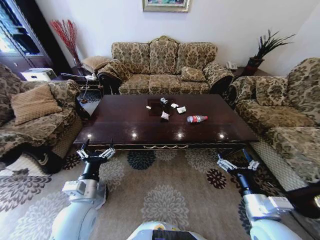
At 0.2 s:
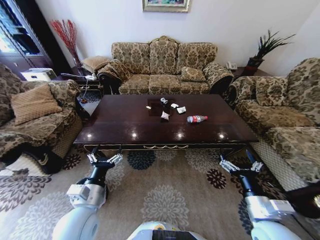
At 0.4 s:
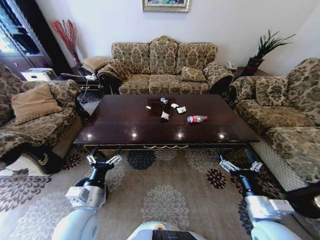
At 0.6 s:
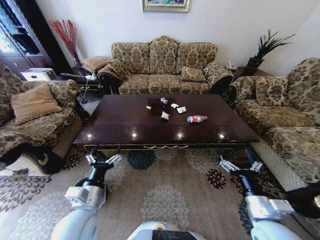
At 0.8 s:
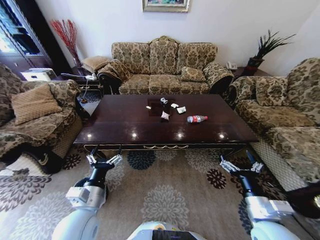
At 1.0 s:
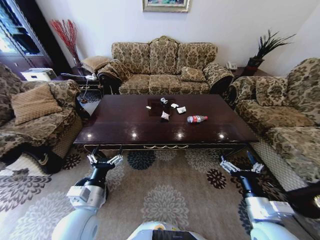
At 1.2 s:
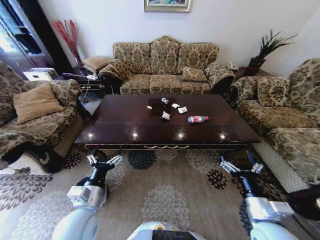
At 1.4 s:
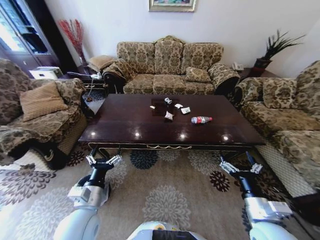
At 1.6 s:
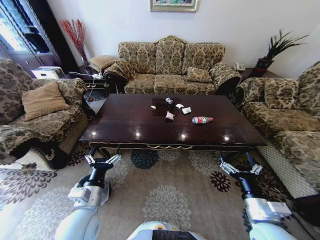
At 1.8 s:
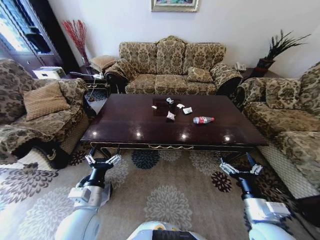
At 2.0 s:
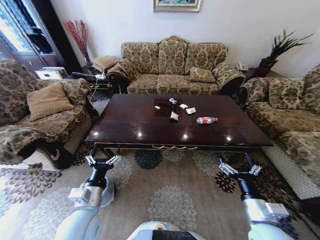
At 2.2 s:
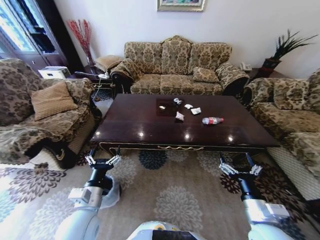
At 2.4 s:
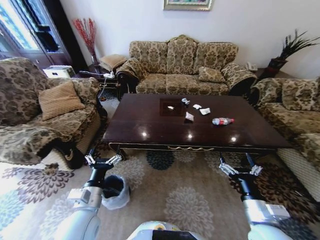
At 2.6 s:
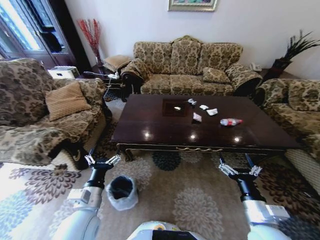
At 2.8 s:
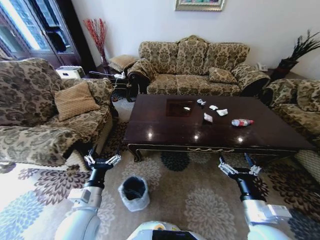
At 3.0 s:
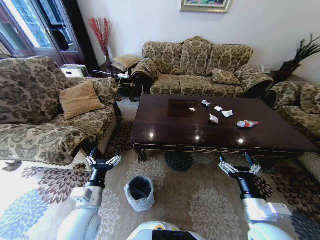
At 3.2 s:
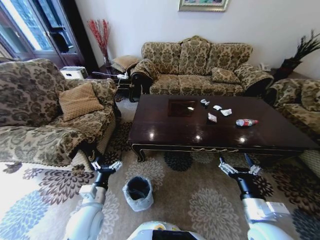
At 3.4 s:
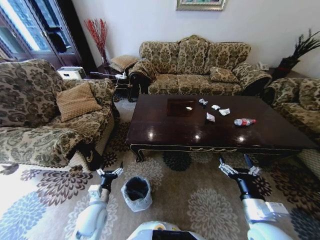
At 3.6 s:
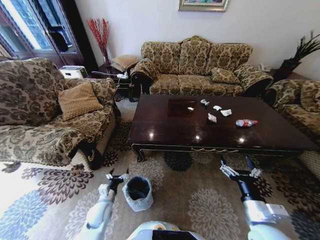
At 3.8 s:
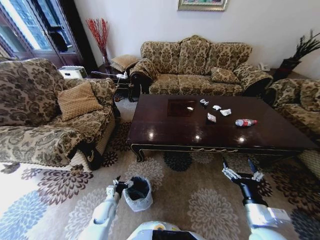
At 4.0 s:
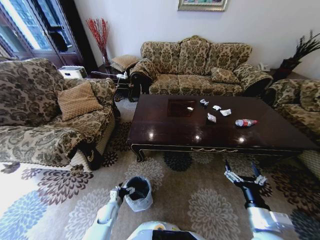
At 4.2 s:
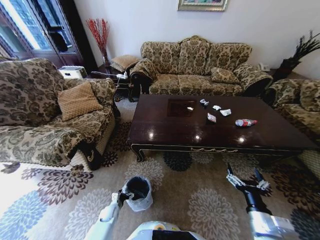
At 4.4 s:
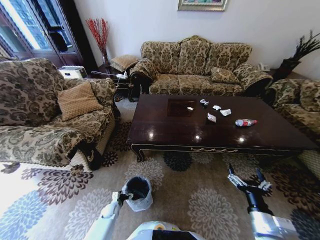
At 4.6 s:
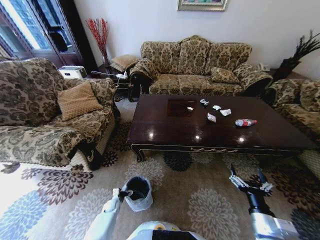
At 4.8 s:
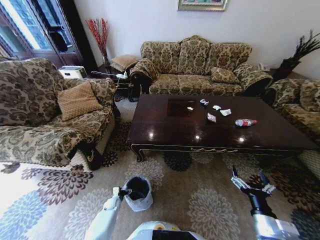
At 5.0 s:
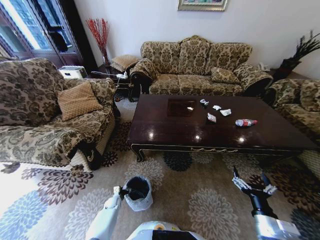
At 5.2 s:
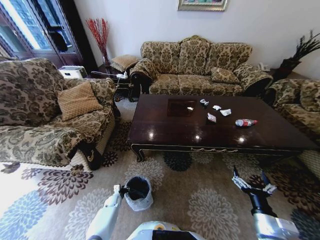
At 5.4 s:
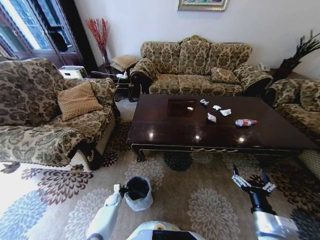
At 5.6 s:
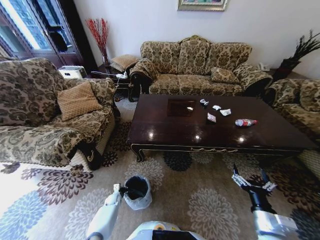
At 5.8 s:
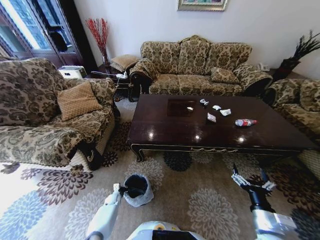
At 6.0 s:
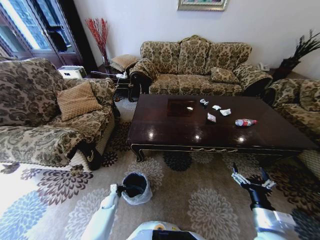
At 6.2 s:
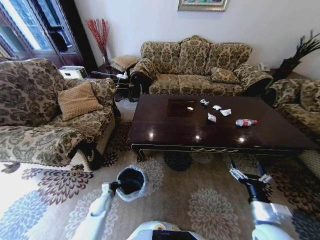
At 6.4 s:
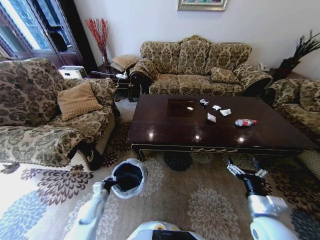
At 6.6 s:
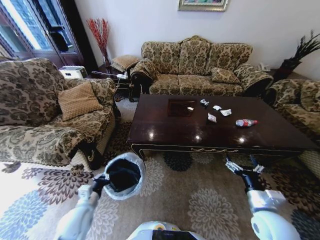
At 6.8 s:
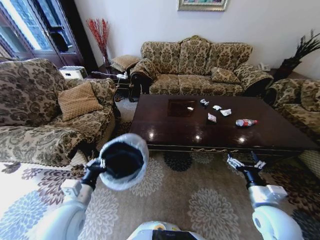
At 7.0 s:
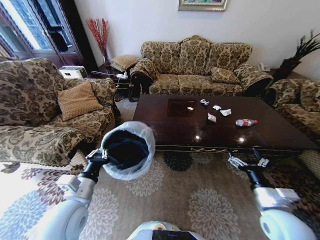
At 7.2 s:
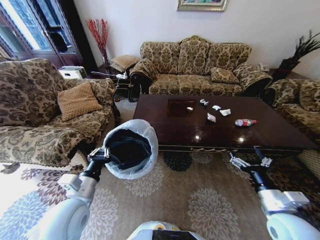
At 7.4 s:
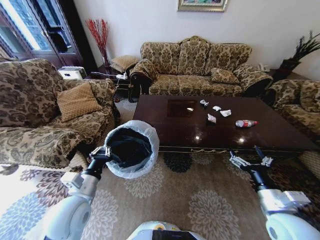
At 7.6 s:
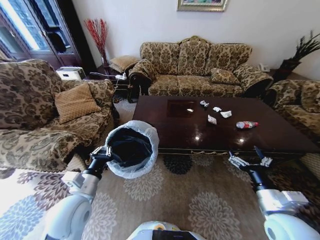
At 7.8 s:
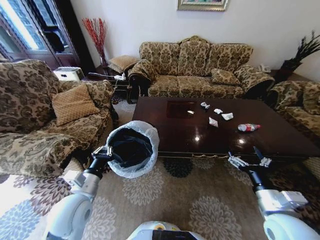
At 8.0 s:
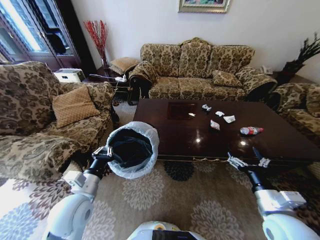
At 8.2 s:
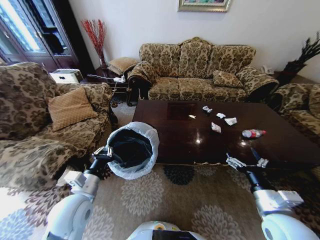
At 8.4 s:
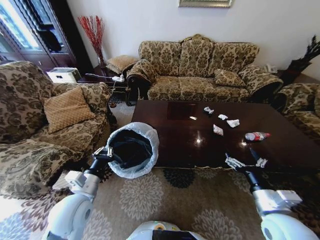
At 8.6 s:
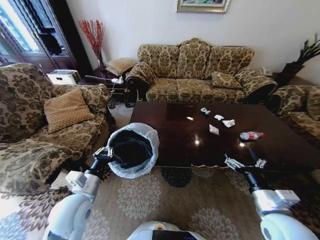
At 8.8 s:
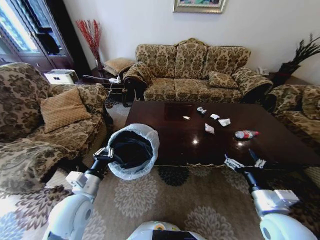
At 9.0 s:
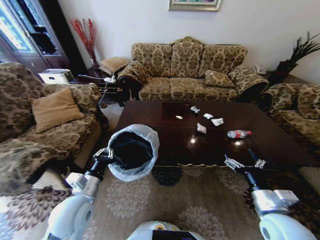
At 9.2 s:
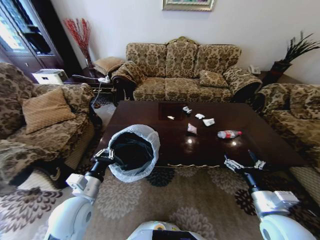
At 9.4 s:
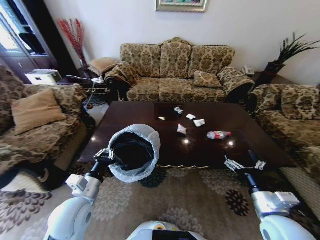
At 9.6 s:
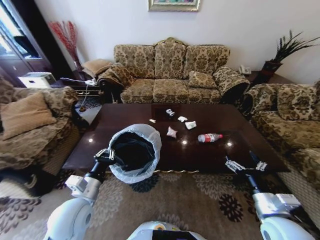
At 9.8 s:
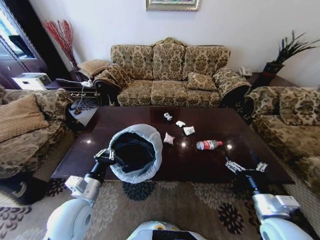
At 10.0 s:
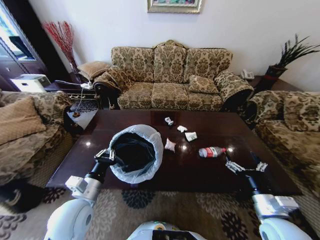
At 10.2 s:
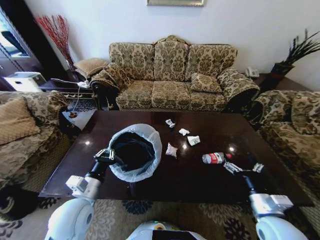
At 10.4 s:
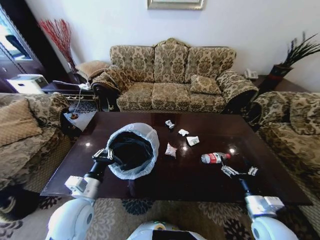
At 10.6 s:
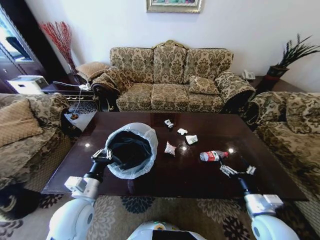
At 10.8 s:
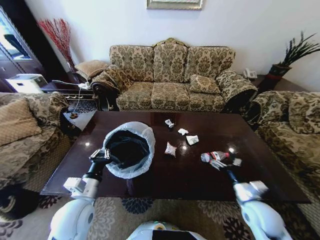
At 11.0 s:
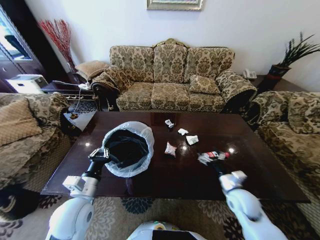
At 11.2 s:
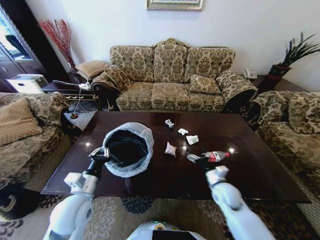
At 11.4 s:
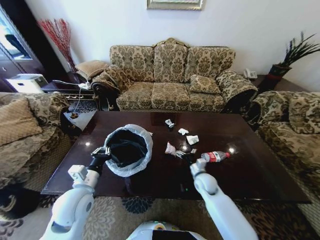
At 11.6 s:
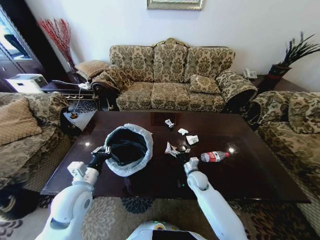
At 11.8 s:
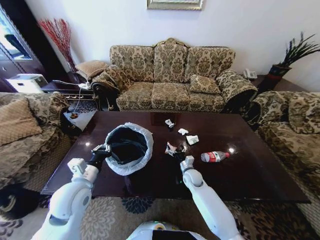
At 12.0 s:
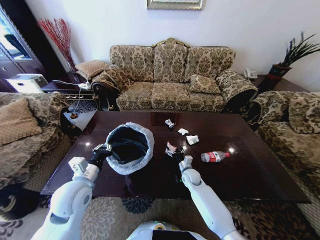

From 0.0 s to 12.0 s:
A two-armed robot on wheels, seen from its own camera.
Task of the whole recording: Move to the front of the table and place the trash on the table into the trash bin.
From 3.0 s to 4.4 s: The left gripper is displaced downward by approximately 35 cm, while the right gripper shifts by some 5 cm.
From 4.4 s to 6.0 s: The left gripper closes its fingers.
From 6.0 s to 7.6 s: The right gripper shifts roughly 5 cm upward. Meanwhile the left gripper travels upward by about 40 cm.
From 9.0 s to 10.4 s: The right gripper is displaced downward by about 5 cm.
From 10.4 s to 12.0 s: The right gripper heads forward, to the left and downward, covering roughly 30 cm. Meanwhile the left gripper changes place by some 5 cm.

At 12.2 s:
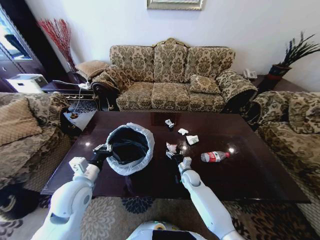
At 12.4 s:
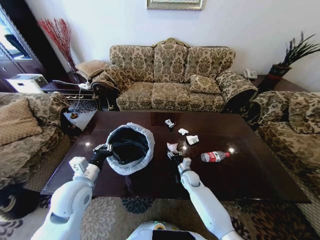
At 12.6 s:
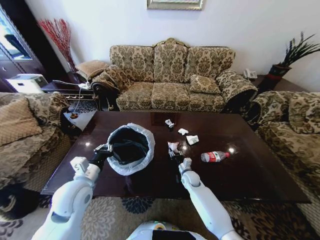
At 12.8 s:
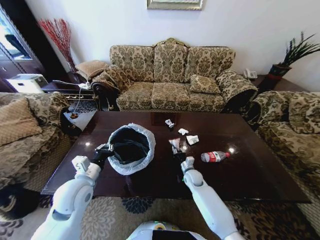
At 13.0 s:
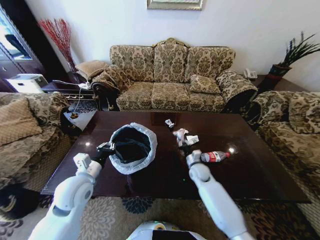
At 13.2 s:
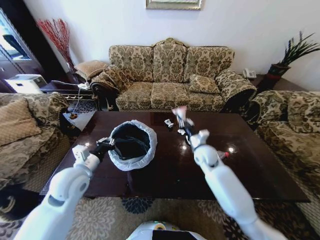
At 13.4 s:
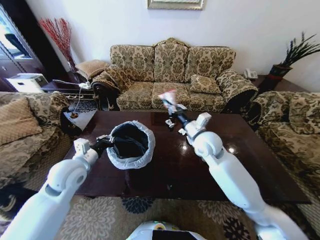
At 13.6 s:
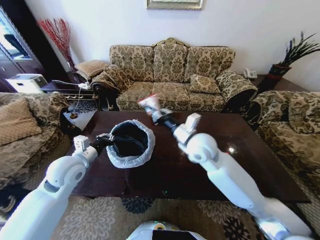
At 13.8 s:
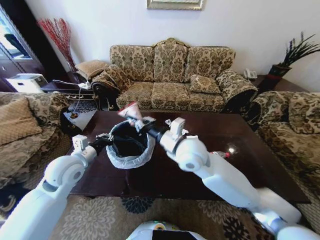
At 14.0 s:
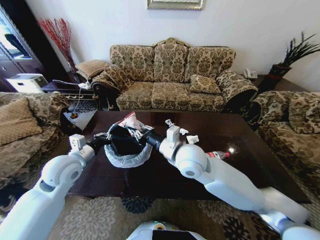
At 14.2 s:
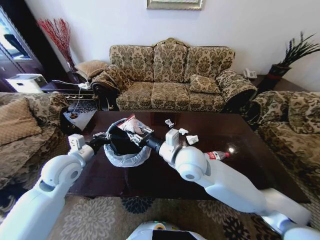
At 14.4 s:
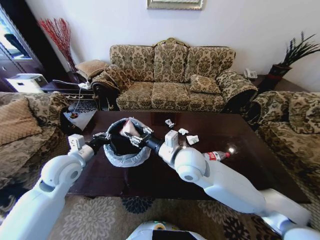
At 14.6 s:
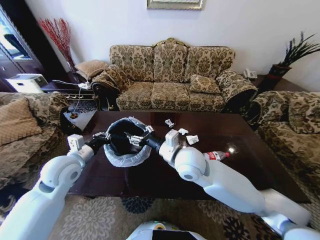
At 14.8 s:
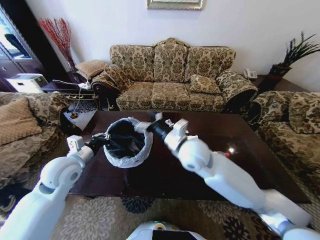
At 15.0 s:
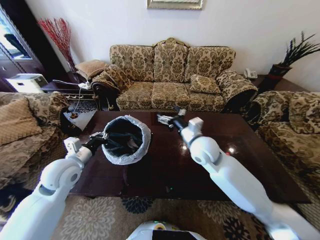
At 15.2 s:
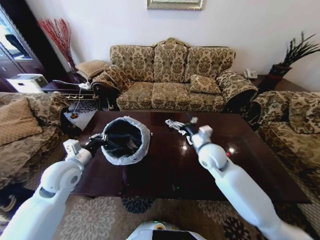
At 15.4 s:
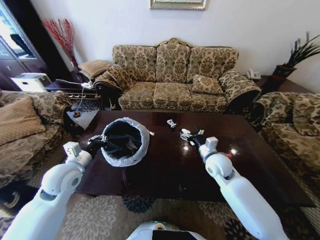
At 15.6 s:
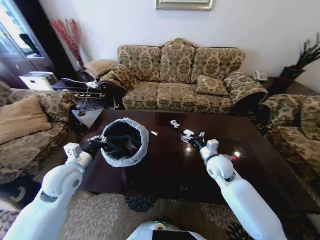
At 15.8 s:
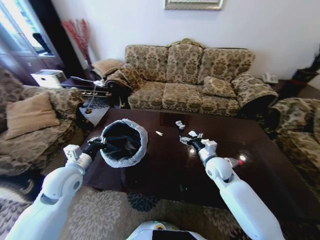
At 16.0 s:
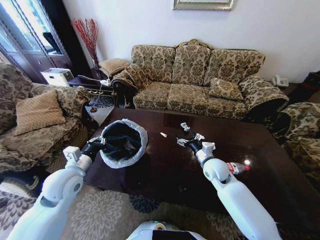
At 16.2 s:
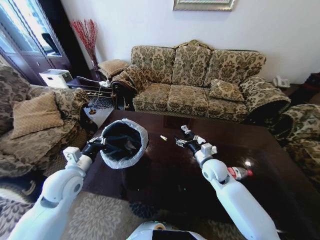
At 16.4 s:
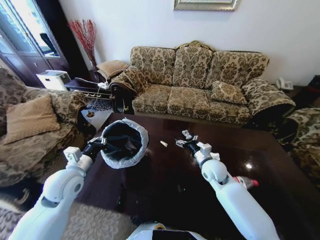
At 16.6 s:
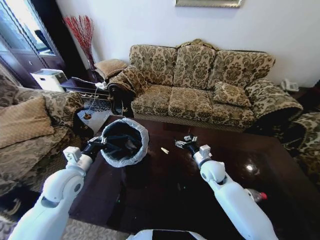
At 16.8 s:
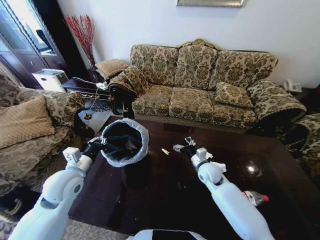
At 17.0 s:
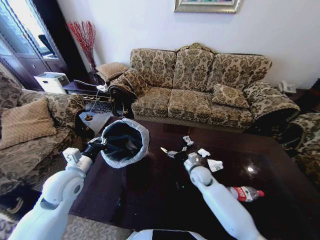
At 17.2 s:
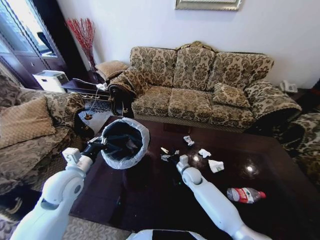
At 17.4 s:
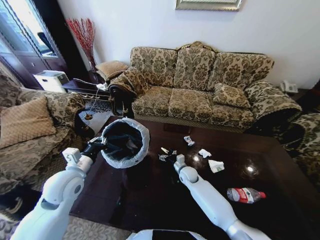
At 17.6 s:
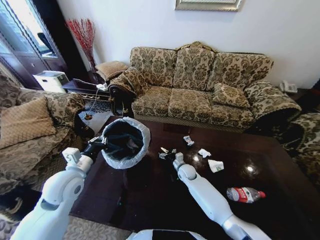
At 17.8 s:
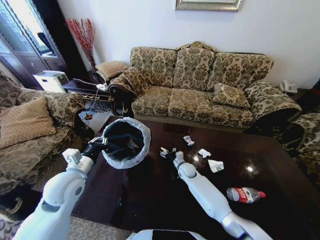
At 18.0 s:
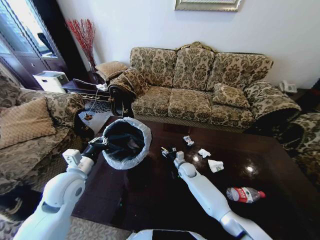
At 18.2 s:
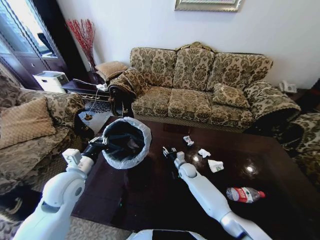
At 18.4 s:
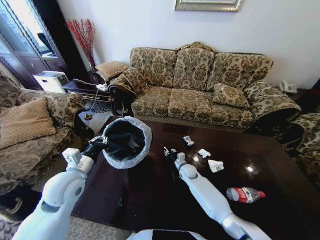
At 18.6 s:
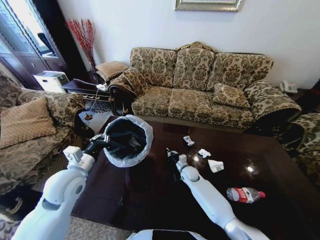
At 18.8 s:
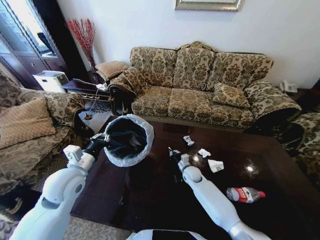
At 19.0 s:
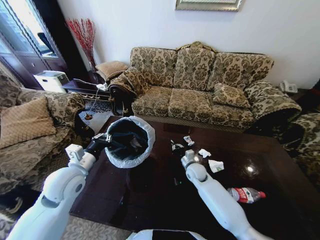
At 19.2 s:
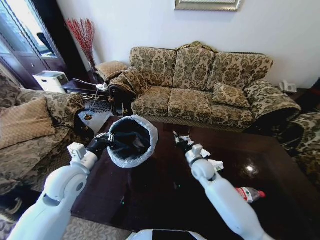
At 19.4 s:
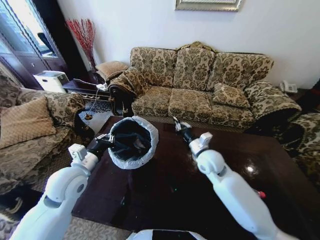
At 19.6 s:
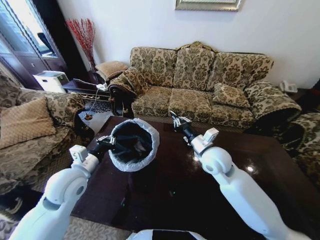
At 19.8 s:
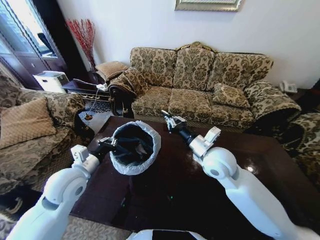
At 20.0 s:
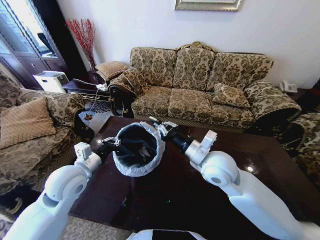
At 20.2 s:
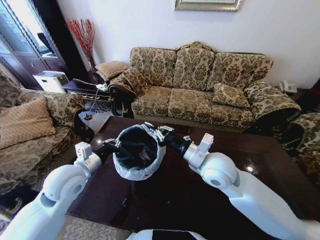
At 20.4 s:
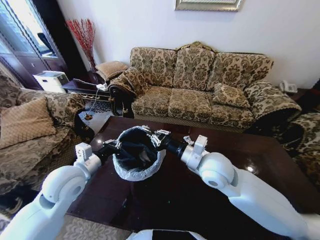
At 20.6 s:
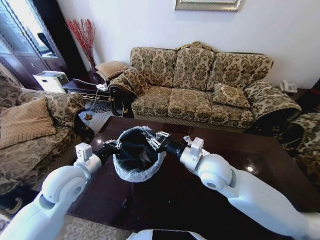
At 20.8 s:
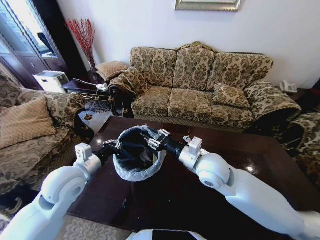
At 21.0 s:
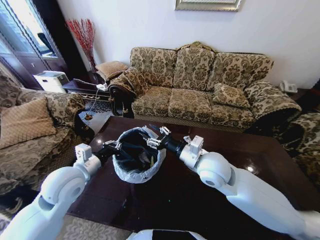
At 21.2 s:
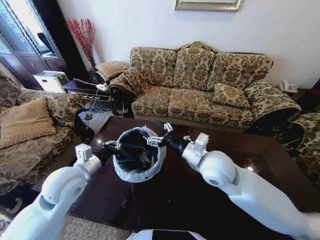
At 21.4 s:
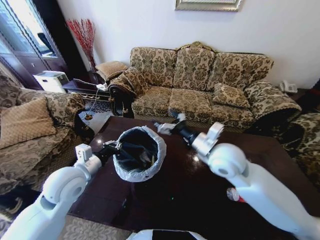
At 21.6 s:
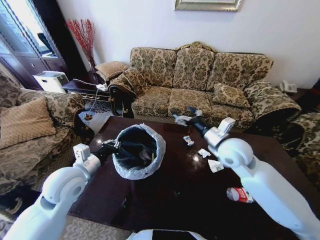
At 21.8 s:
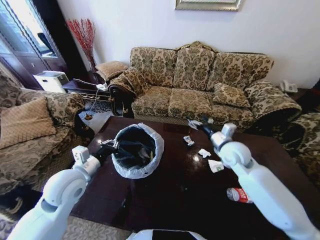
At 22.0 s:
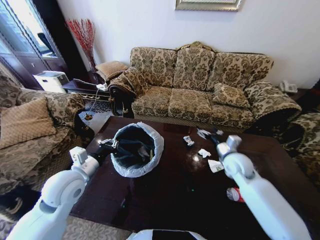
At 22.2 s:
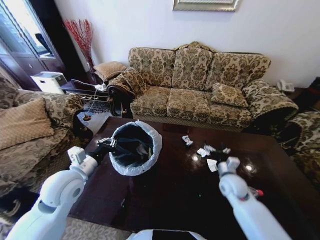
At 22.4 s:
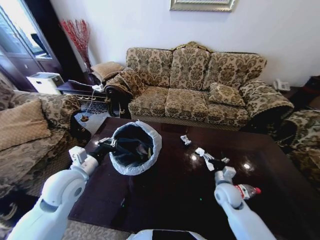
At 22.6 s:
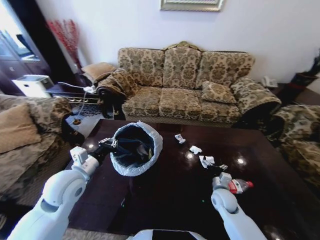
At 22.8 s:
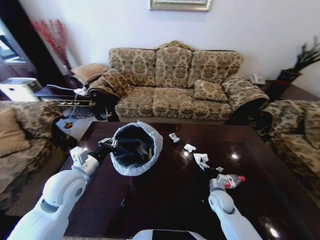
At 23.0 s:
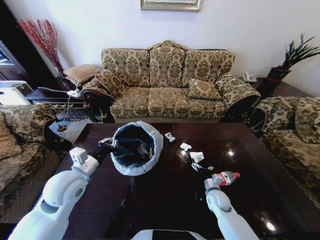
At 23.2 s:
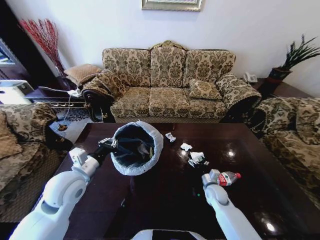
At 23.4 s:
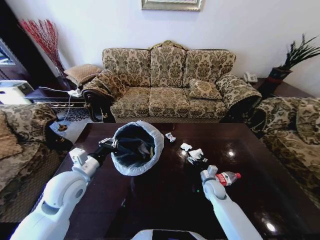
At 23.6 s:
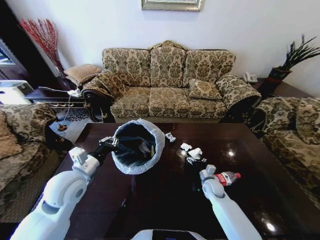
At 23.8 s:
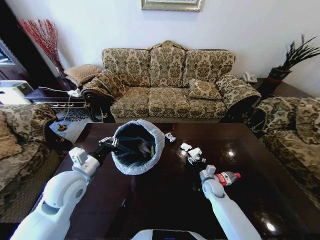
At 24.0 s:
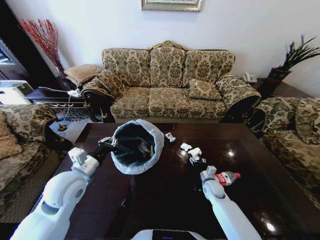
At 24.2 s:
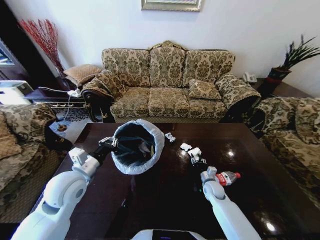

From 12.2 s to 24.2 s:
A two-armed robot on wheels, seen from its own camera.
Task of the whole recording: Move to the front of the table and place the trash on the table into the trash bin.
From 12.2 s to 13.8 s: The right gripper moves upward, about 35 cm, and closes up. The left gripper shifts some 5 cm forward.
From 13.8 s to 15.2 s: The right gripper is displaced to the right and downward by some 15 cm, and opens up.
From 15.2 s to 16.6 s: The right gripper travels downward by about 10 cm.
From 16.6 s to 18.2 s: The right gripper goes roughly 20 cm downward, to the left and forward, and closes up.
From 18.2 s to 19.8 s: The right gripper shifts approximately 30 cm upward, and closes up.
From 19.8 s to 21.2 s: The right gripper opens its fingers.
From 21.2 s to 22.6 s: The right gripper heads downward and to the right, covering roughly 30 cm.
From 22.6 s to 24.2 s: The right gripper shifts some 10 cm forward and downward, and closes its fingers.
